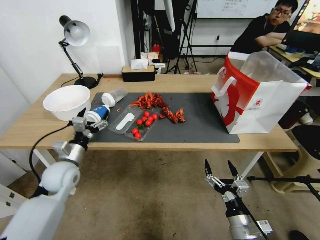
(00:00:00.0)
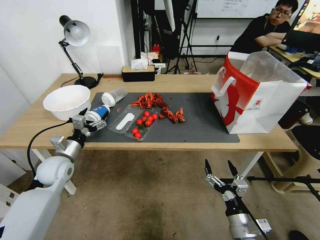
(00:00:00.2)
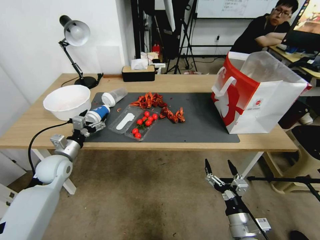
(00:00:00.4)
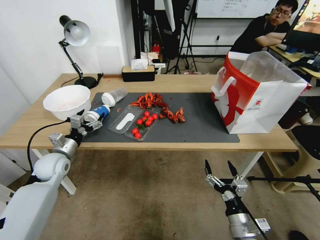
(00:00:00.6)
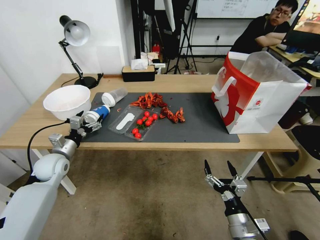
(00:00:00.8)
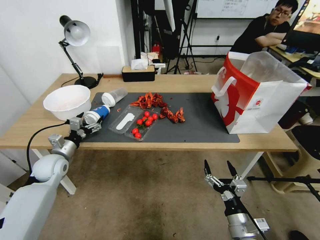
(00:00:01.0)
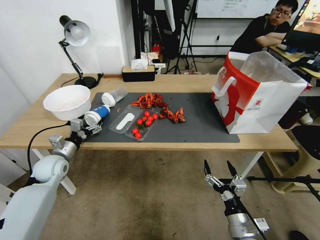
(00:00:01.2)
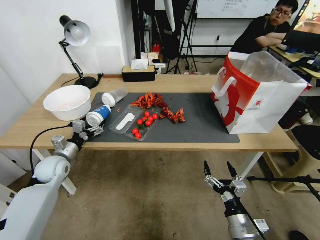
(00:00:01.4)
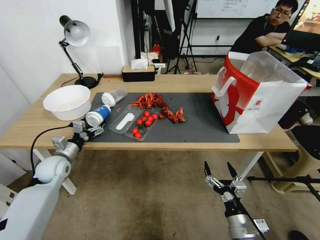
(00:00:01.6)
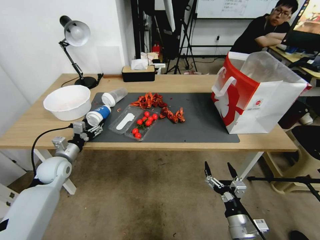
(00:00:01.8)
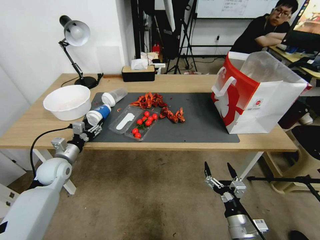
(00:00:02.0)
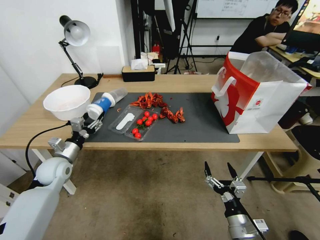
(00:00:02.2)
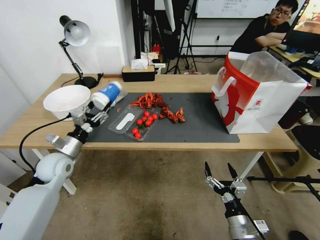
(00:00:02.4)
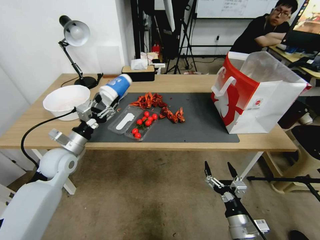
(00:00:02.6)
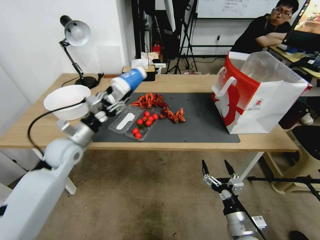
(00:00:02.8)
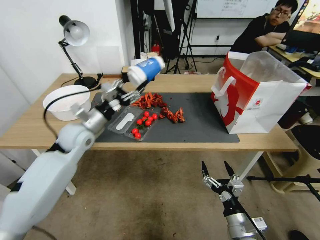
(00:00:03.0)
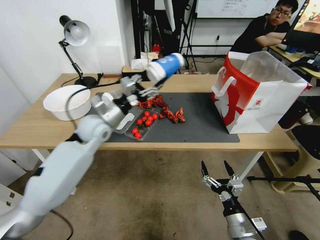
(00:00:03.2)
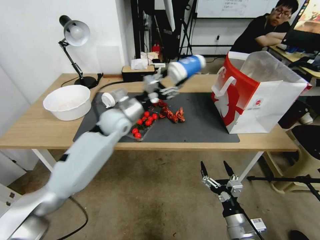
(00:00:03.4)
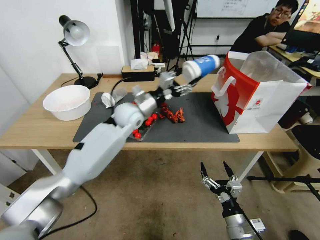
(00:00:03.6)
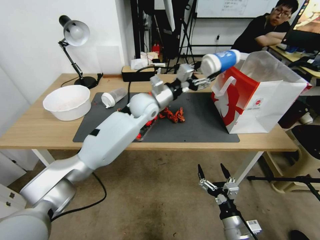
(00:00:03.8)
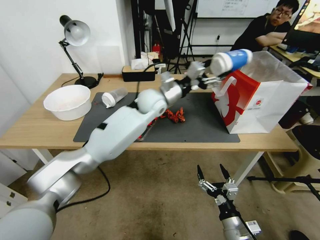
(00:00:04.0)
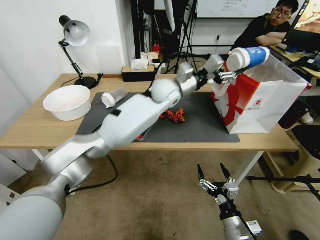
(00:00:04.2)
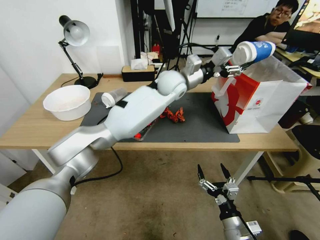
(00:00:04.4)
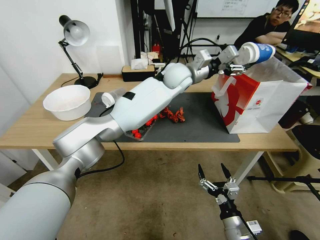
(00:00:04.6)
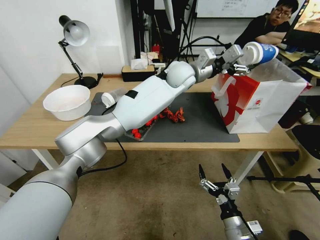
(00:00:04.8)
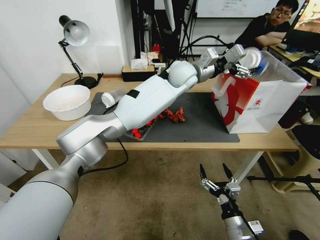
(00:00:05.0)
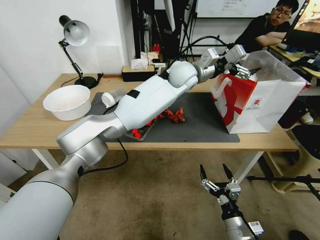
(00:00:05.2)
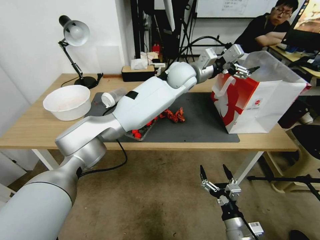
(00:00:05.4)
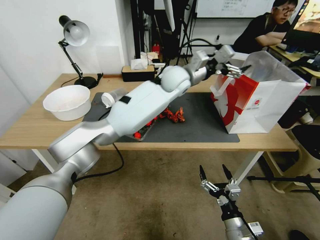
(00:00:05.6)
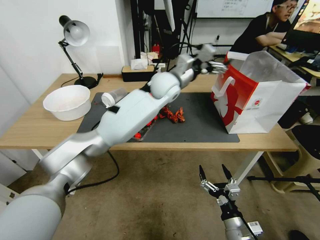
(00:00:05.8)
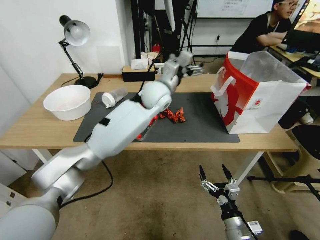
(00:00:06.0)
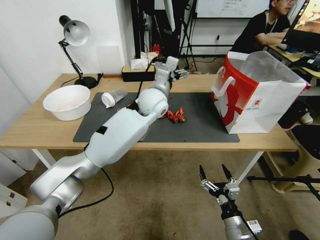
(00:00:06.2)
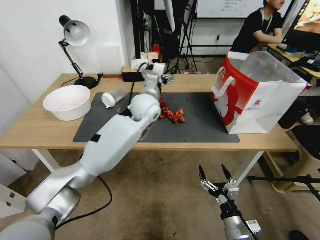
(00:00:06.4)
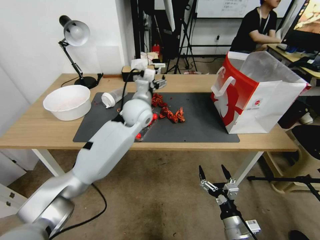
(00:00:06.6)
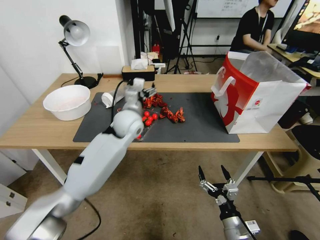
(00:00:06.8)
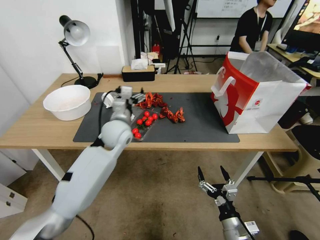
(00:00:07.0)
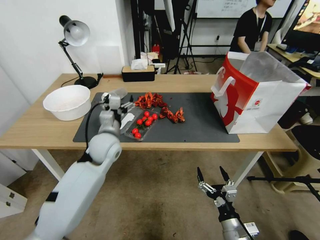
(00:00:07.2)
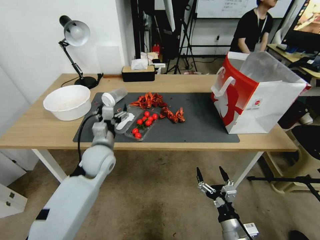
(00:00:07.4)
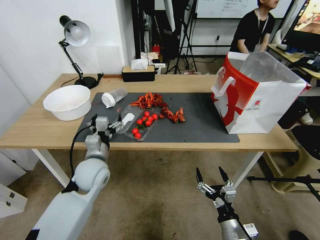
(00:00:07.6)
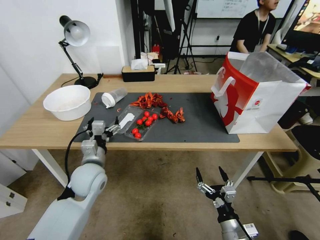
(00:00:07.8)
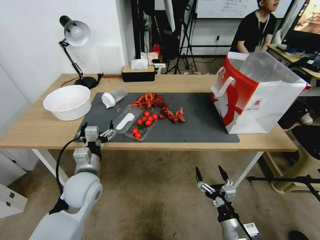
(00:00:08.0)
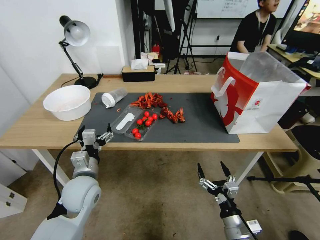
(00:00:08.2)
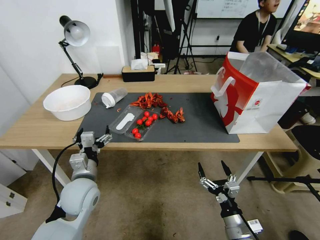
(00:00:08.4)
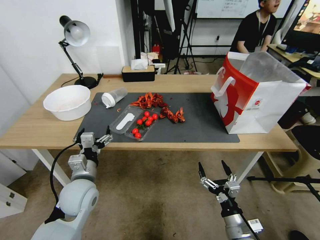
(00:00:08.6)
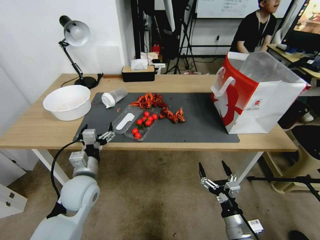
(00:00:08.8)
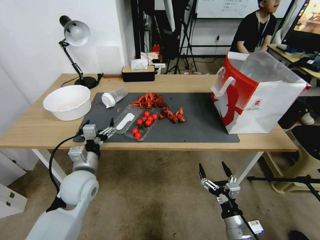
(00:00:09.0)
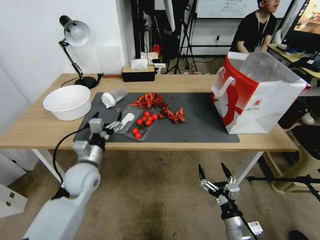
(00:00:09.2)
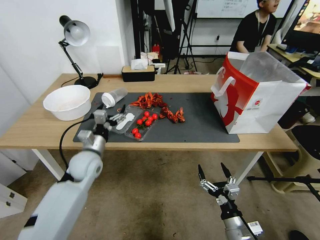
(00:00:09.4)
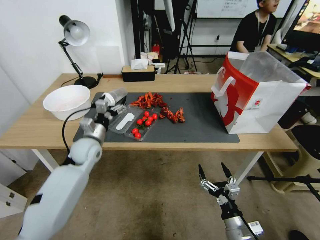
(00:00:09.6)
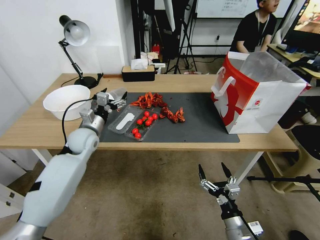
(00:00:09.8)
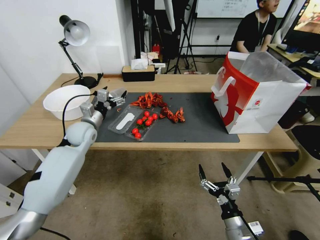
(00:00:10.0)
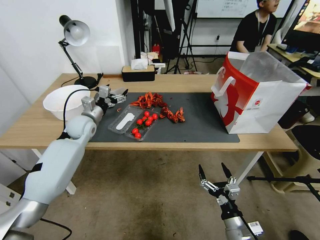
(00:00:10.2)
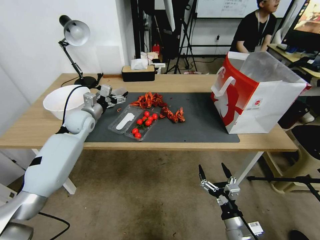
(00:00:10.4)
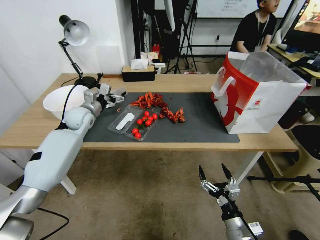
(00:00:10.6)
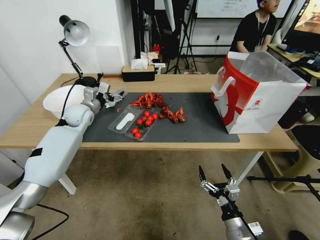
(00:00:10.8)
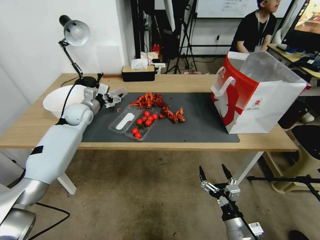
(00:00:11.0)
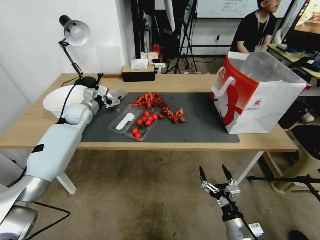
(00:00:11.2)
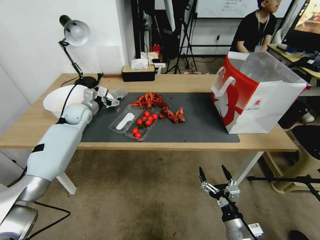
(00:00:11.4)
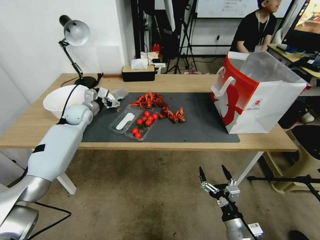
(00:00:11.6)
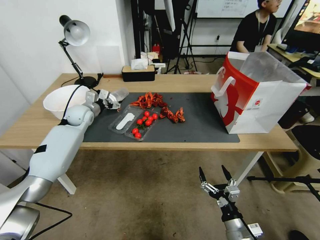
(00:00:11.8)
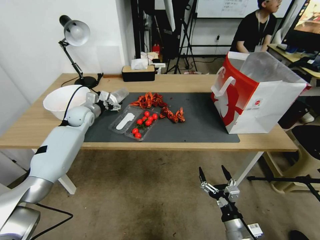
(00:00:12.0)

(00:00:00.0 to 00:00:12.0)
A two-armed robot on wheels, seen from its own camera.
00:00:00.0 - 00:00:01.6: The left gripper is displaced to the left by roughly 5 cm.
00:00:01.6 - 00:00:03.0: The left gripper moves upward and to the right, about 15 cm, and closes up.
00:00:03.0 - 00:00:04.4: The left gripper goes some 35 cm to the right and forward.
00:00:04.4 - 00:00:06.0: The left gripper changes place by roughly 5 cm, and opens its fingers.
00:00:06.0 - 00:00:07.6: The left gripper heads to the left, backward and downward, covering some 30 cm.
00:00:07.6 - 00:00:09.0: The left gripper moves some 5 cm.
00:00:09.0 - 00:00:10.4: The left gripper goes roughly 20 cm forward.
00:00:10.4 - 00:00:12.0: The left gripper is displaced forward by roughly 5 cm.

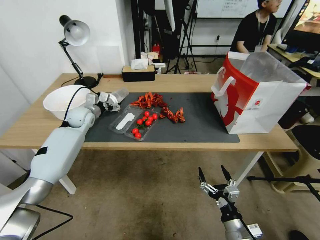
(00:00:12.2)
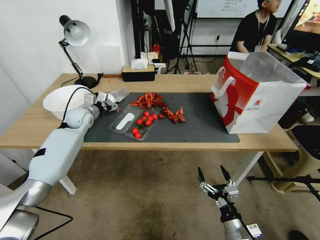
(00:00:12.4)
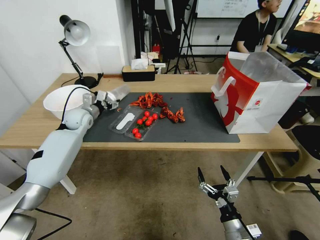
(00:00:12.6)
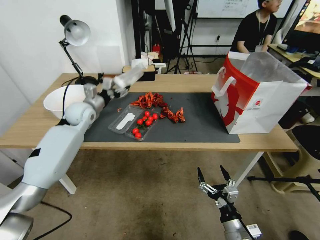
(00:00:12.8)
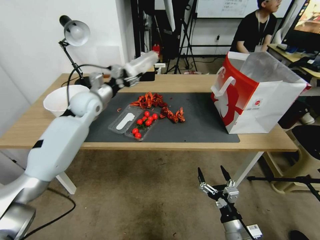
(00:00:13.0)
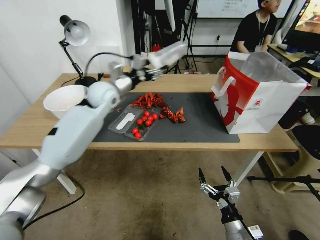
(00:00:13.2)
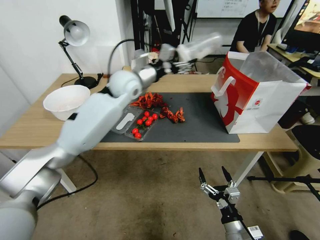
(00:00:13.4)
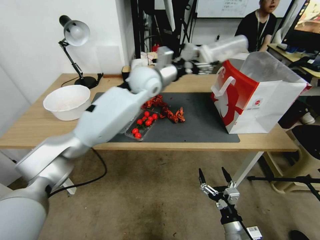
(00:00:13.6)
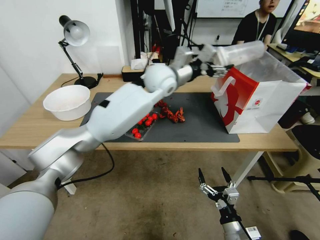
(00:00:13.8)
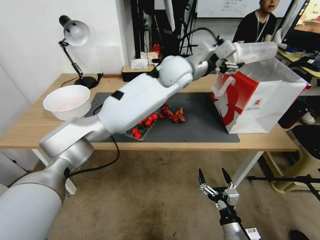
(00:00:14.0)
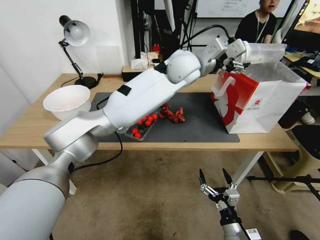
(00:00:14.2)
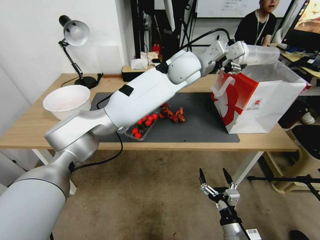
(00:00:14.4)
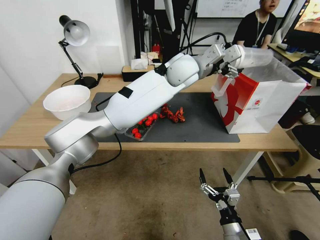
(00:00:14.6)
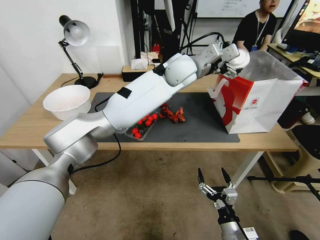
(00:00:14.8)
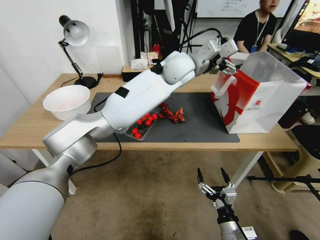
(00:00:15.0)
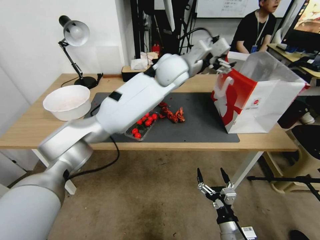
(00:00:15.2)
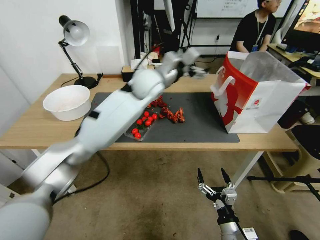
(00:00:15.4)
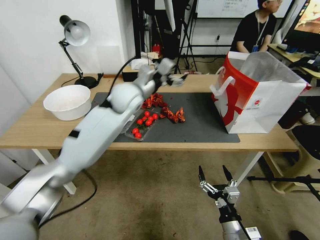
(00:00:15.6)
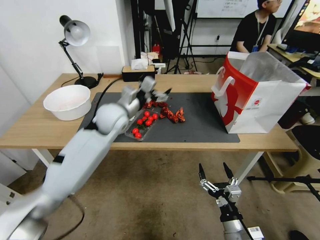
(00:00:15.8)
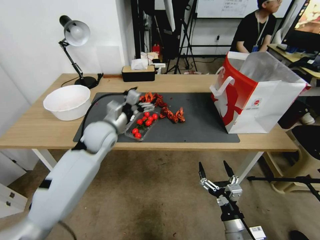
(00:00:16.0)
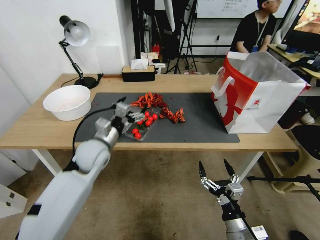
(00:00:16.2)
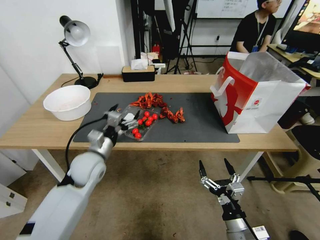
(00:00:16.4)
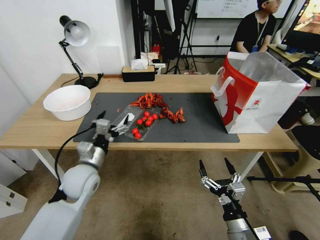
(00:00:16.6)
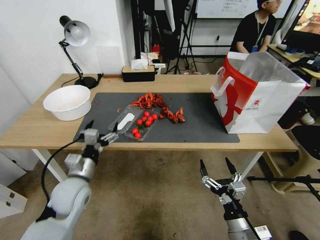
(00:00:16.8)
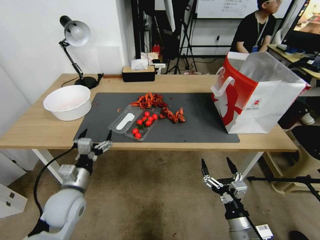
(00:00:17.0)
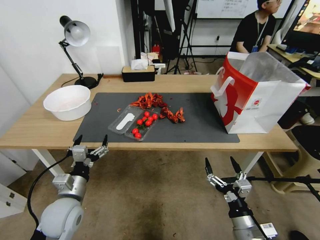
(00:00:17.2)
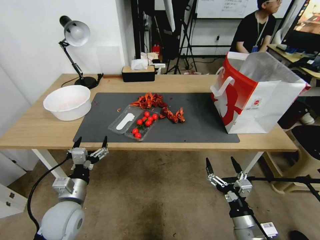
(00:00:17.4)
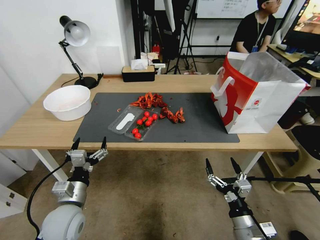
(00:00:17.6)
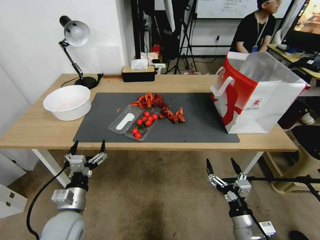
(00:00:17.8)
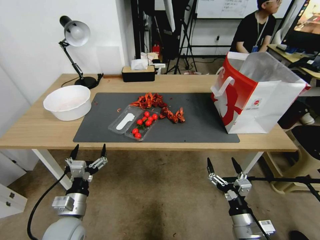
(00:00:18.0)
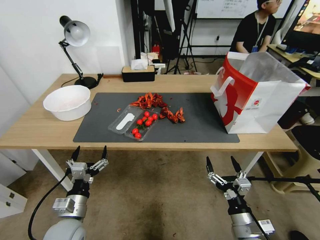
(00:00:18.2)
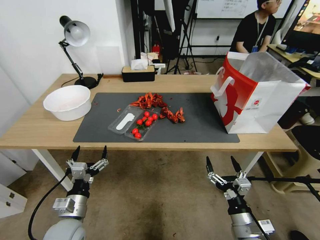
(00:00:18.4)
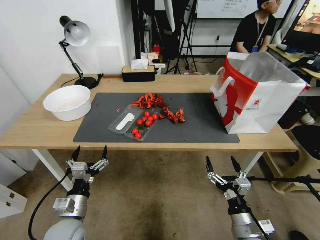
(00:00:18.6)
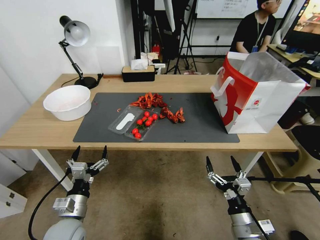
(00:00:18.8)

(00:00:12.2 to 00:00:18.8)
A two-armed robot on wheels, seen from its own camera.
00:00:12.2 - 00:00:13.8: The left gripper is displaced to the right and upward by about 35 cm, and closes up.
00:00:13.8 - 00:00:15.4: The left gripper shifts roughly 5 cm to the right, and opens.
00:00:15.4 - 00:00:17.2: The left gripper goes about 50 cm backward, to the left and downward, while the right gripper heads upward, covering about 5 cm.
00:00:17.2 - 00:00:18.8: The left gripper shifts by approximately 5 cm.
